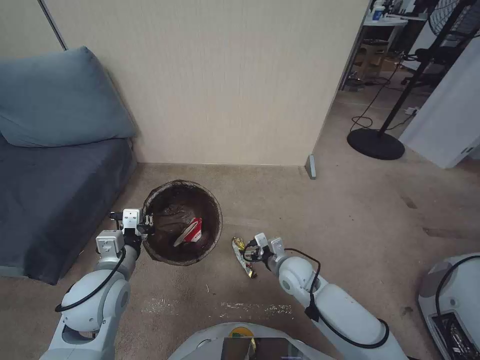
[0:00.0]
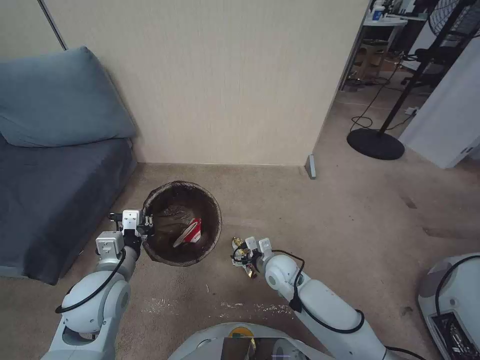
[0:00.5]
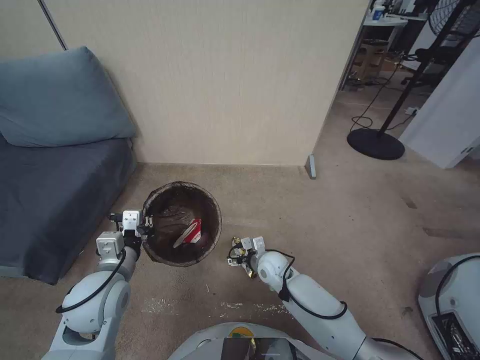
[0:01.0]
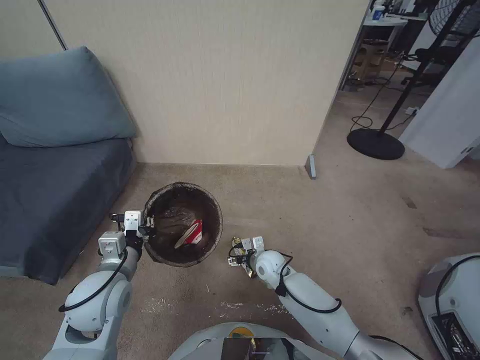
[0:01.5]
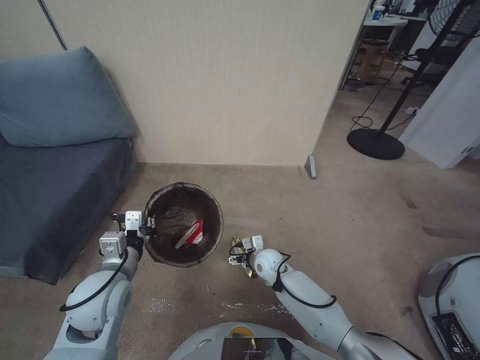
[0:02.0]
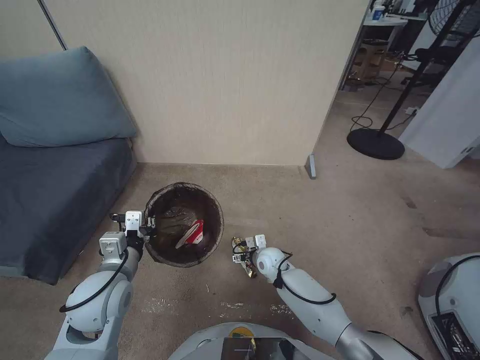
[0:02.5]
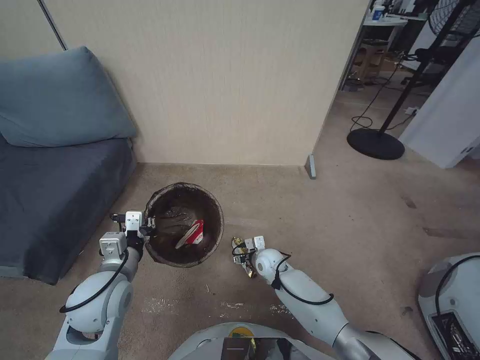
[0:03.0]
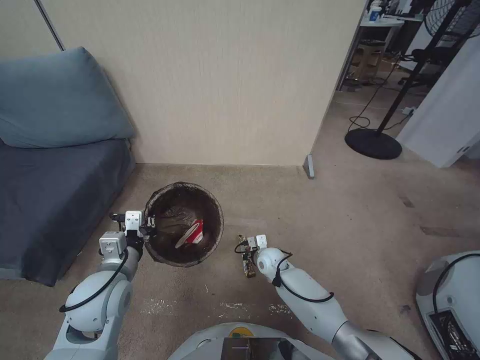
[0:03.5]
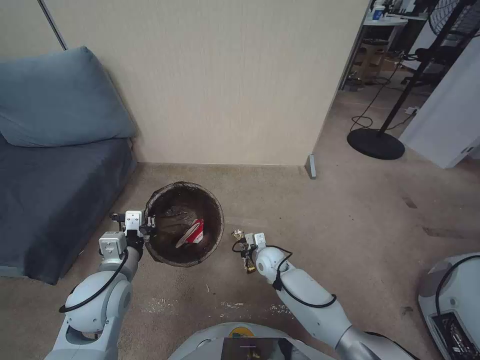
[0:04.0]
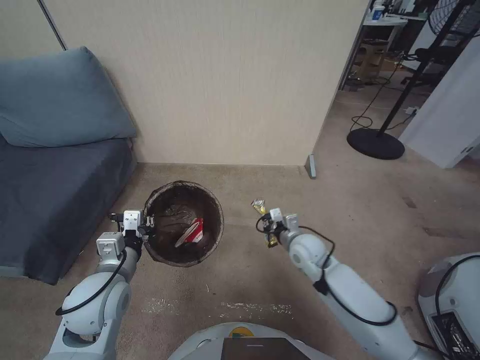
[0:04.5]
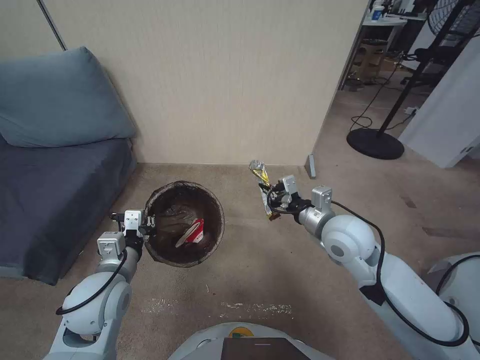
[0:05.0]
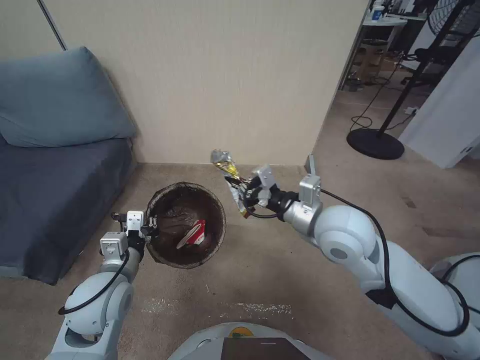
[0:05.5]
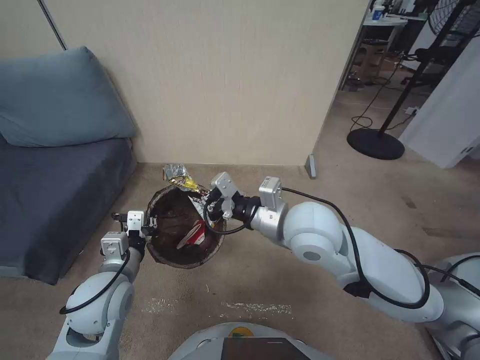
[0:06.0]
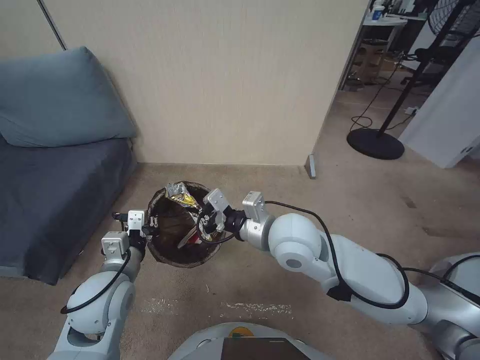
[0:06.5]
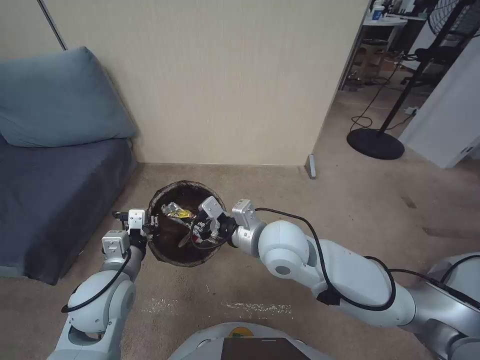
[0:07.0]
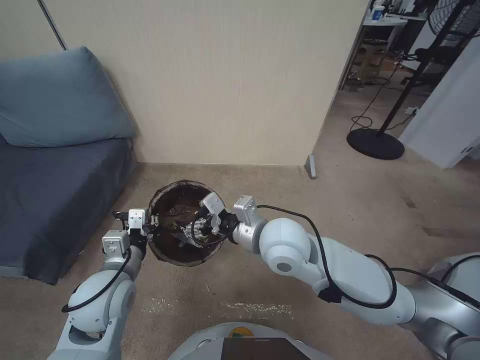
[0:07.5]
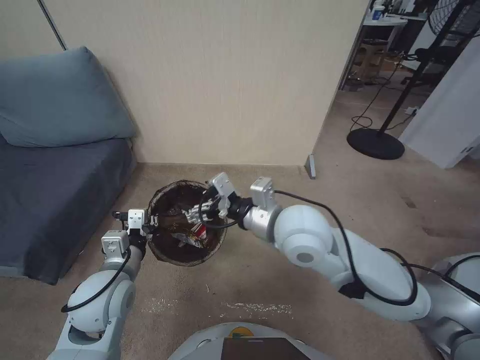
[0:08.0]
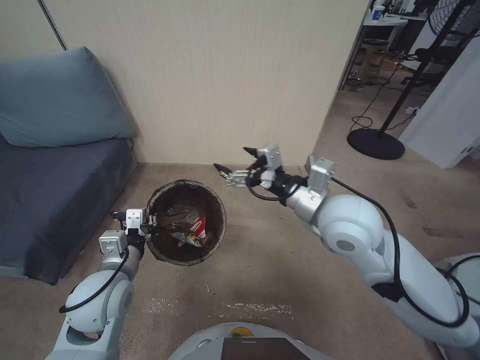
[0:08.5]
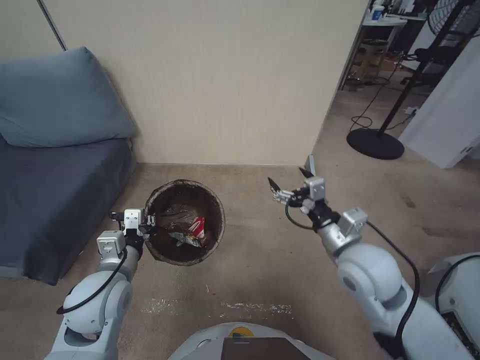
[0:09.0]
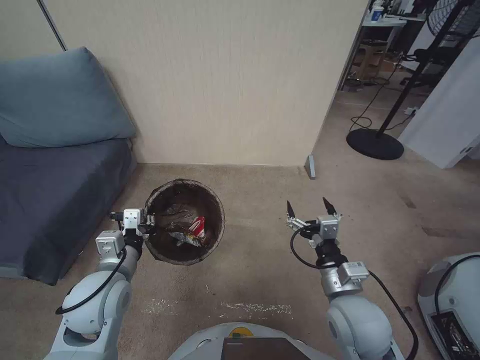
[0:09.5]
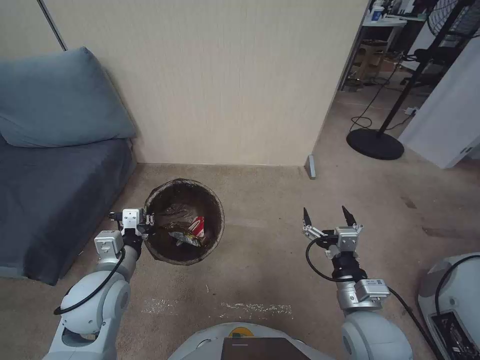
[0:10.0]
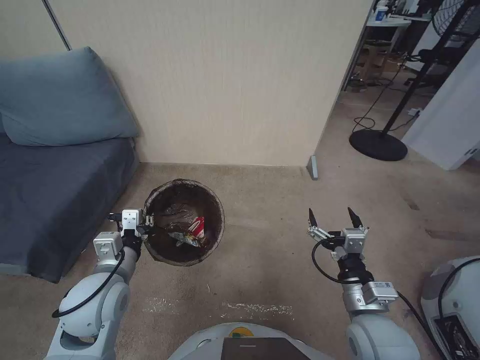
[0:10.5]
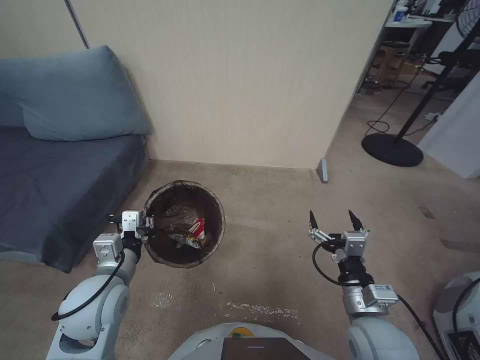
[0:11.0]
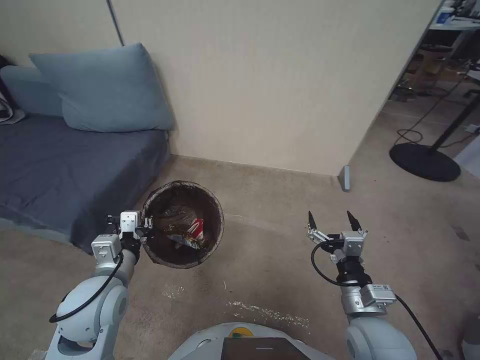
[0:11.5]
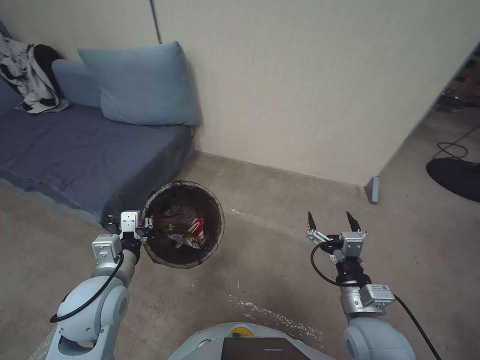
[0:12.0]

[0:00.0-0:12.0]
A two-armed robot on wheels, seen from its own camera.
Task of the whole recording: Pick up the trash bin, then pick up the garbage from the floor and place it into the trash bin.
0:00.0 to 0:02.0: The right gripper travels downward, to the left and forward by some 10 cm.
0:02.0 to 0:04.0: The right gripper closes up.
0:04.0 to 0:06.0: The right gripper is displaced upward by roughly 35 cm.
0:06.0 to 0:08.0: The right gripper opens.
0:08.0 to 0:10.0: The right gripper goes roughly 25 cm downward, to the right and backward.

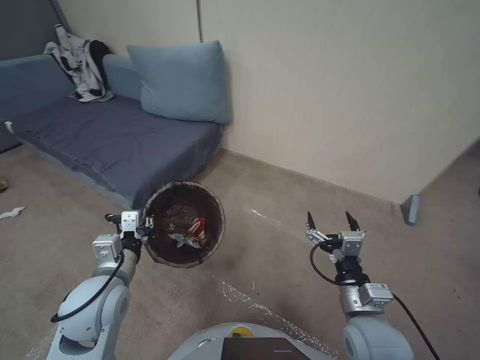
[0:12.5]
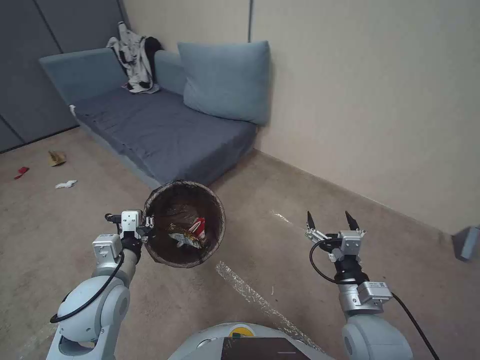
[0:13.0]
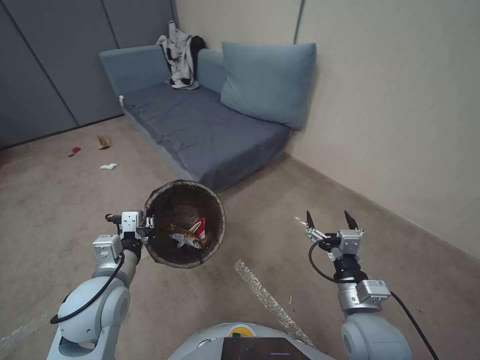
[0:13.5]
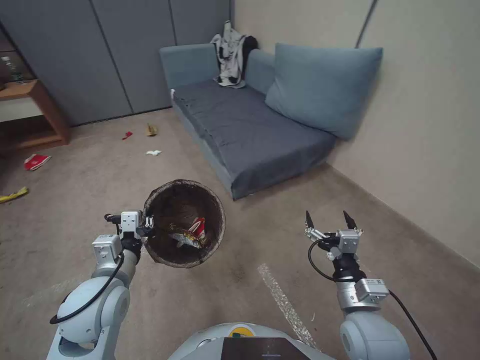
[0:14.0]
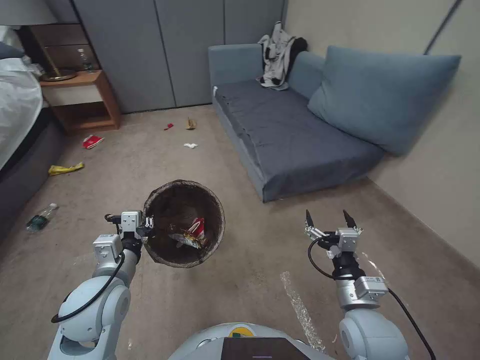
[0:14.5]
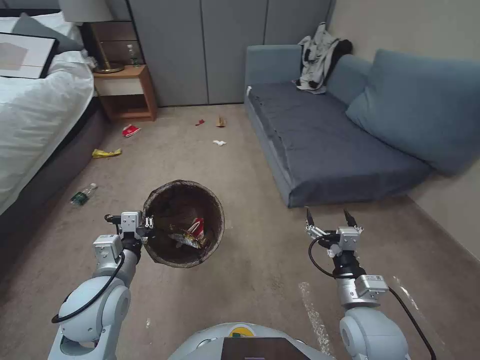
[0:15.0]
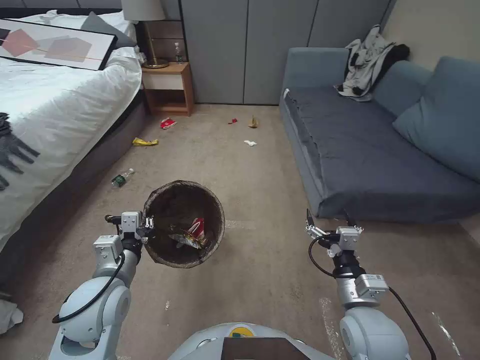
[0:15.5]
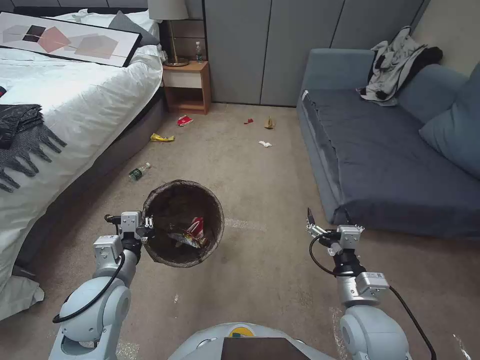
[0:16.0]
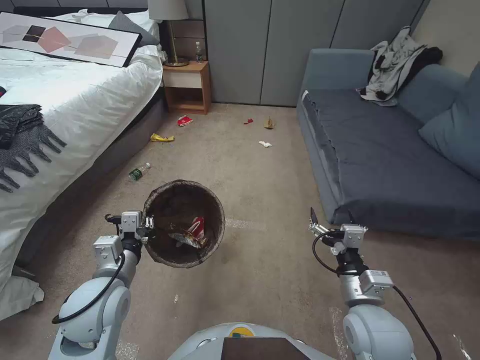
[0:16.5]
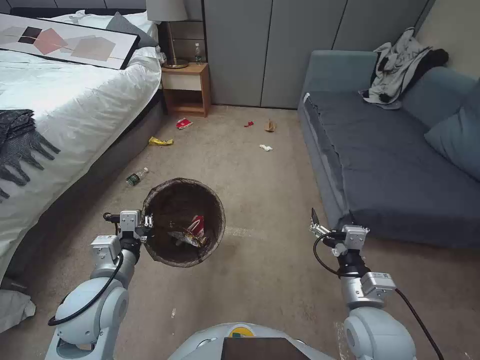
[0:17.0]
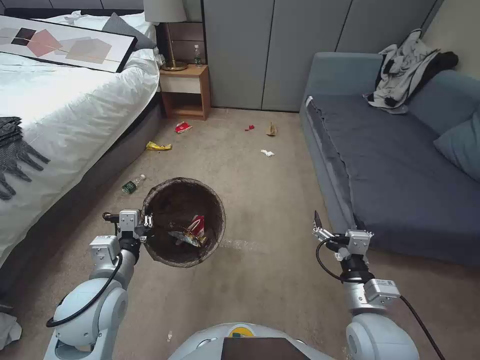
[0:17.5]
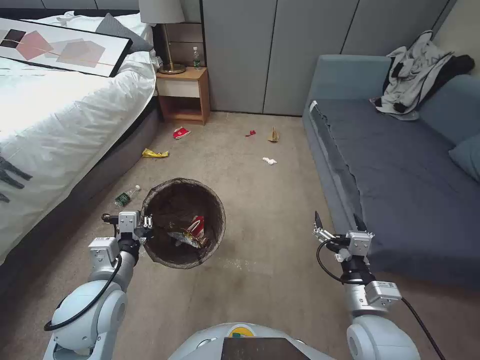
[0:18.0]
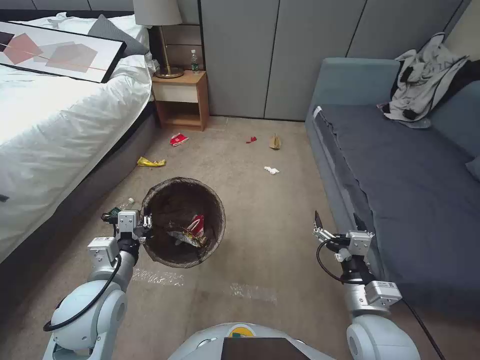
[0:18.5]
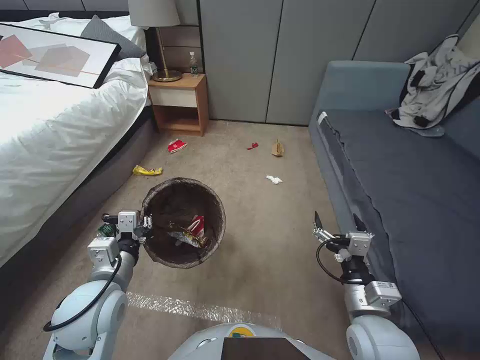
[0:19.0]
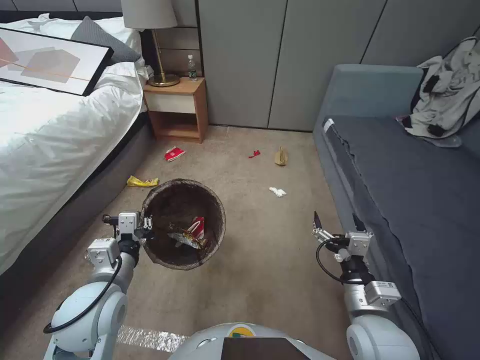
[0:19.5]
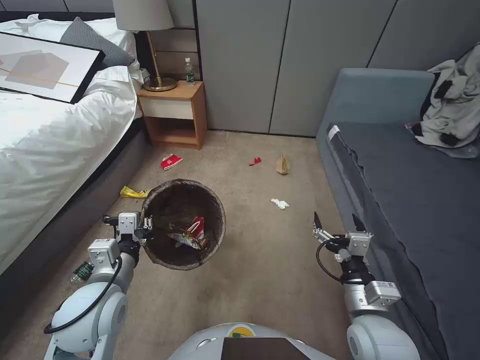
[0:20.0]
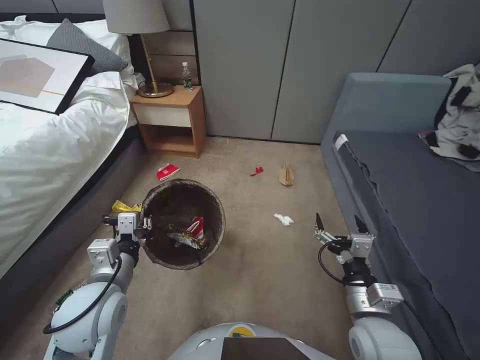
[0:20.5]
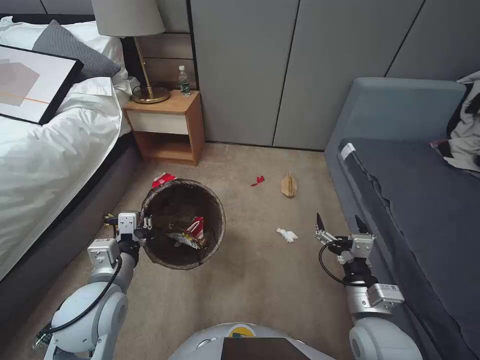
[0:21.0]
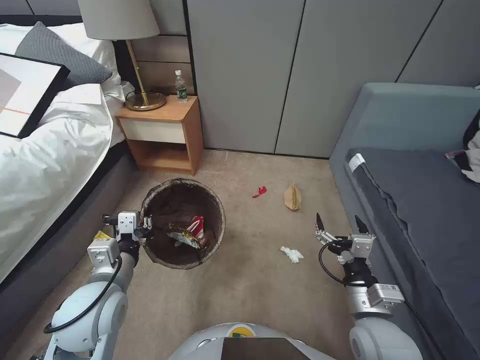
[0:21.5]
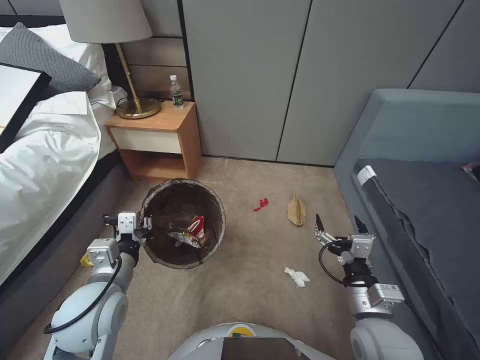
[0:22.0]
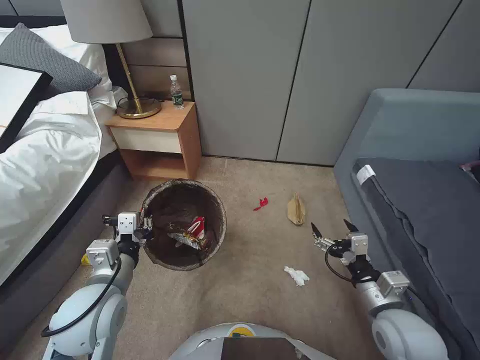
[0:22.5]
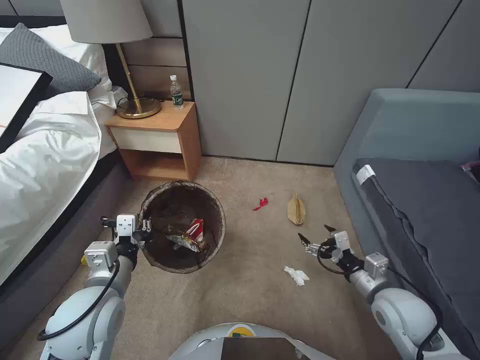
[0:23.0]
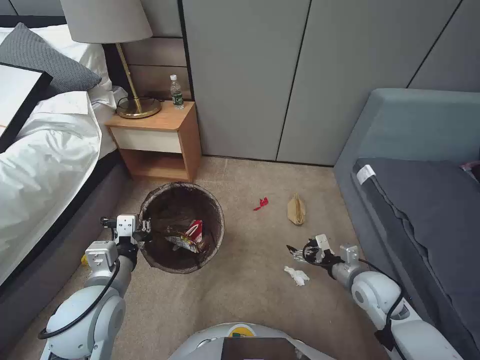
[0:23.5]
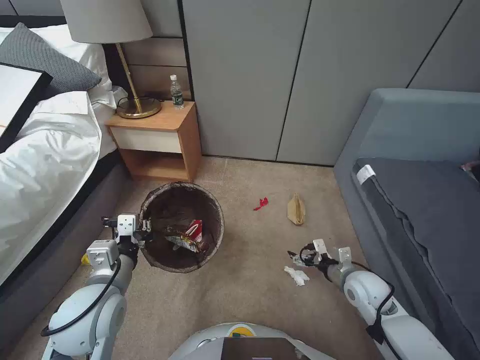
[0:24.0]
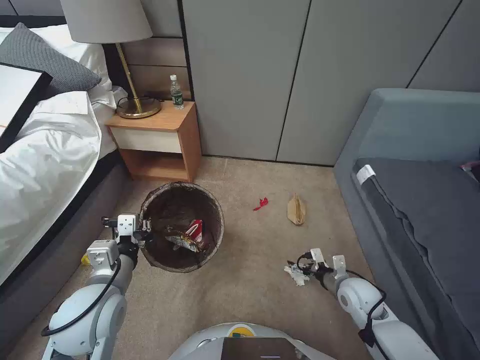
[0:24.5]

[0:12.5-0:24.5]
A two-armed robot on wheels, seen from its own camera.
Task of the whole recording: Pick up the trash bin, then pick up the garbage from the floor and place it into the trash bin.
0:22.5 to 0:24.5: The right gripper shifts approximately 15 cm downward and forward.

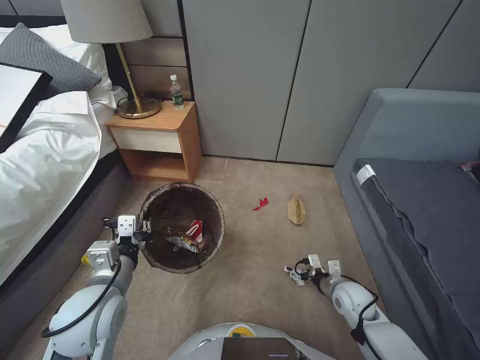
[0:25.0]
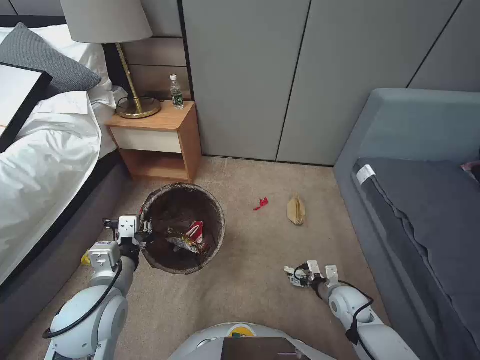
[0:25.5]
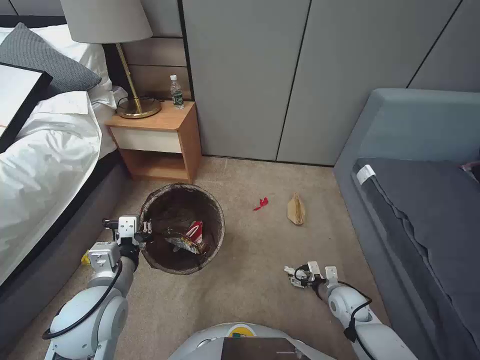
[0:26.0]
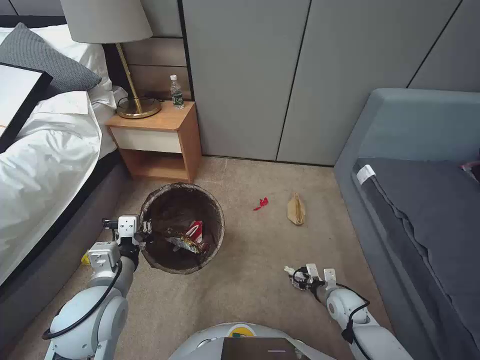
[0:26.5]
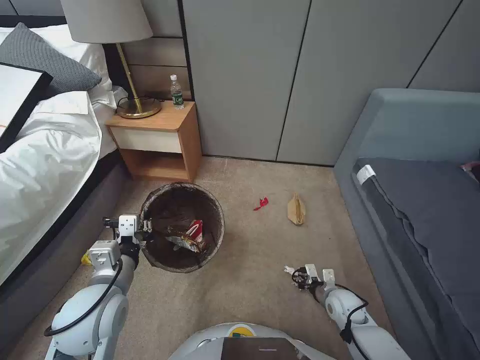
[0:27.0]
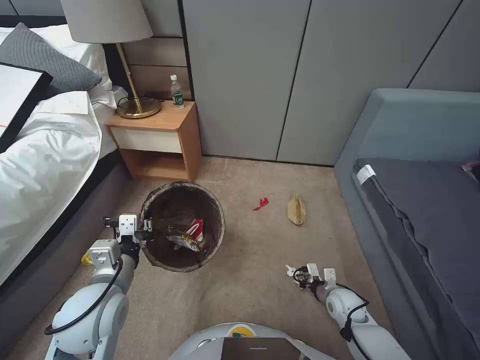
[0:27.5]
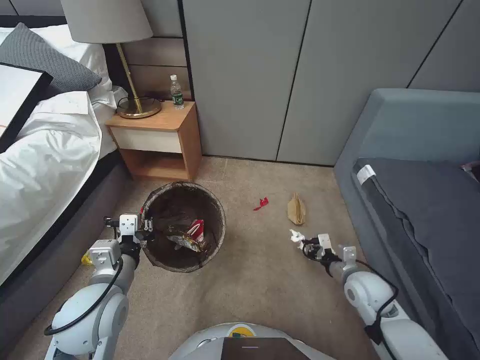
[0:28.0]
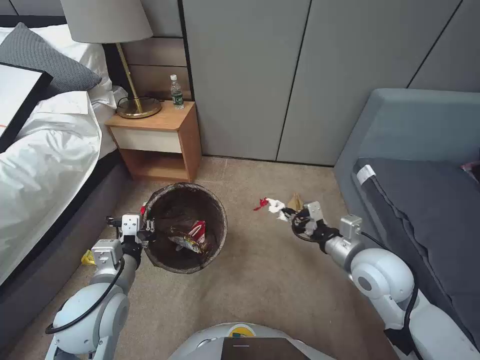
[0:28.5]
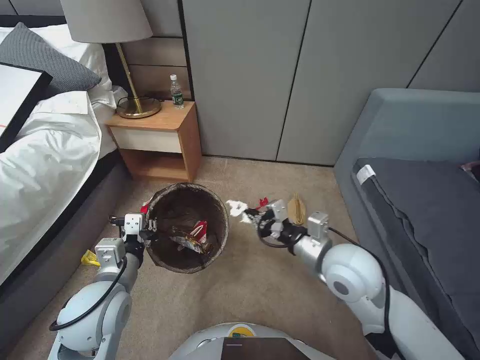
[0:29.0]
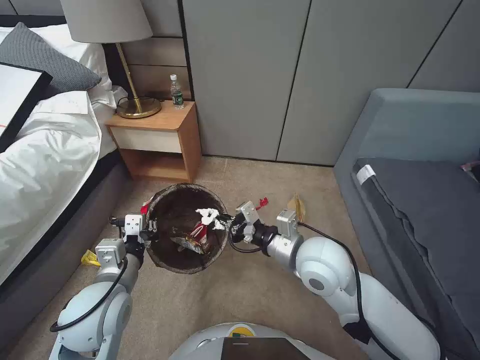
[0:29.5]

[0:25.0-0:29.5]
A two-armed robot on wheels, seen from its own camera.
Task of the whole recording: Pick up the trash bin, then pick up the garbage from the floor and place it into the trash bin.
0:25.0 to 0:27.0: The right gripper goes roughly 5 cm downward, and closes.
0:27.0 to 0:29.5: The right gripper goes approximately 35 cm upward and to the left.
